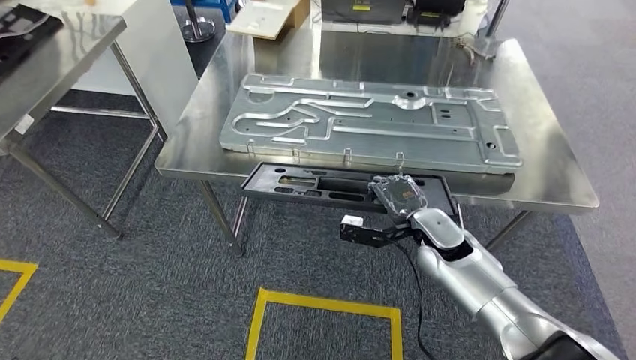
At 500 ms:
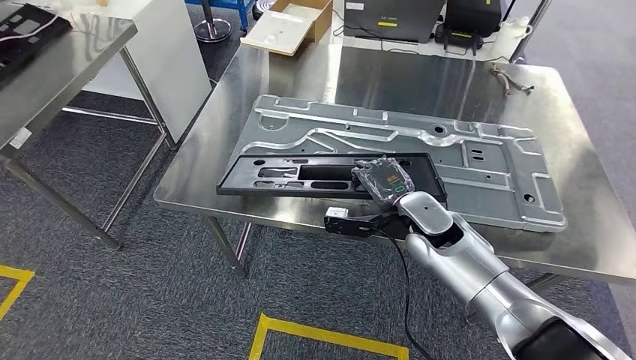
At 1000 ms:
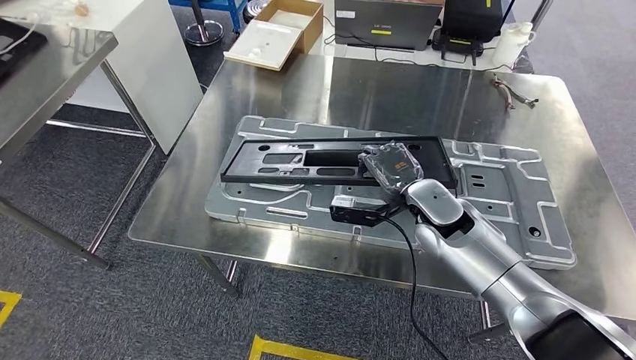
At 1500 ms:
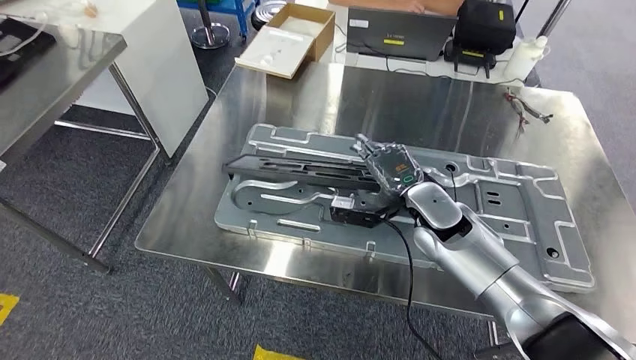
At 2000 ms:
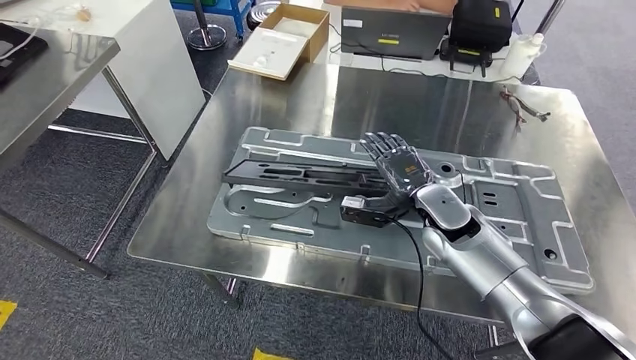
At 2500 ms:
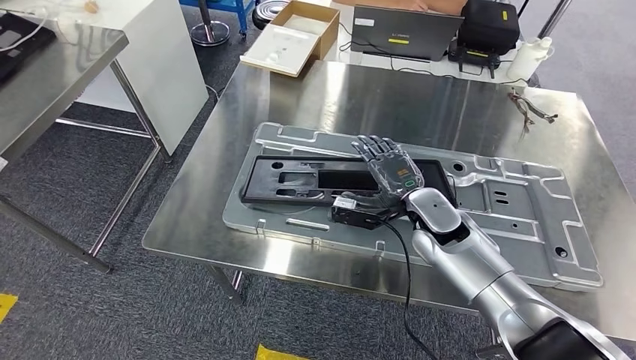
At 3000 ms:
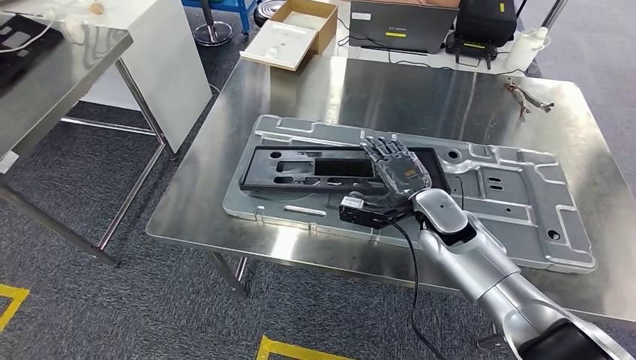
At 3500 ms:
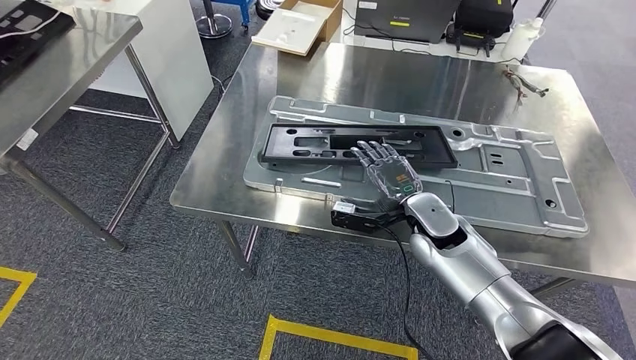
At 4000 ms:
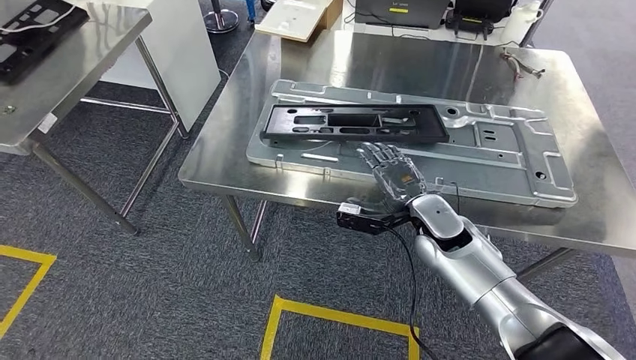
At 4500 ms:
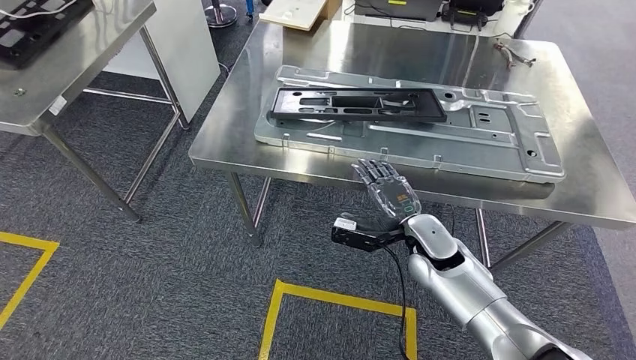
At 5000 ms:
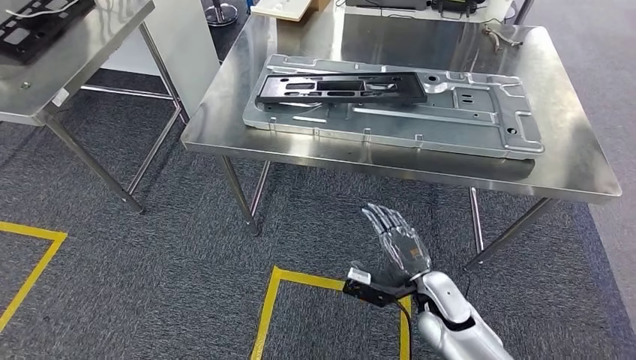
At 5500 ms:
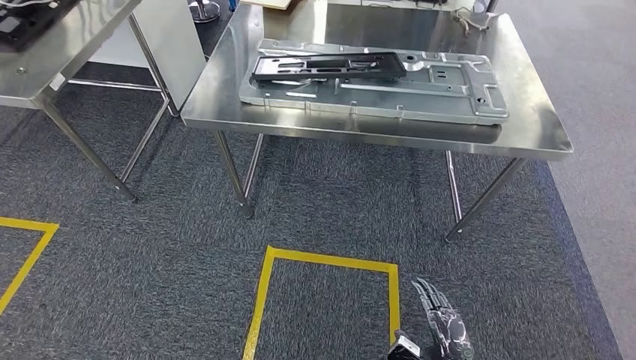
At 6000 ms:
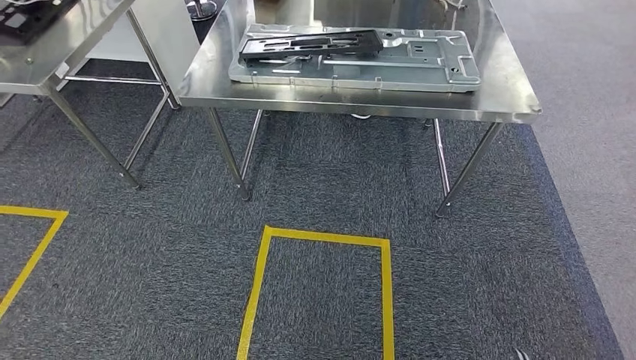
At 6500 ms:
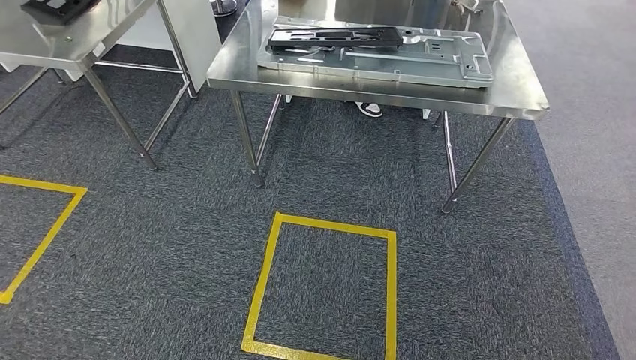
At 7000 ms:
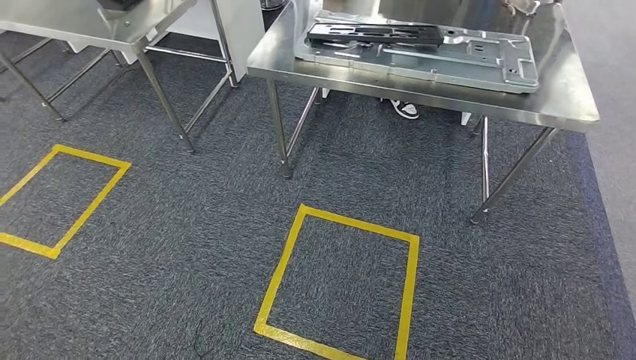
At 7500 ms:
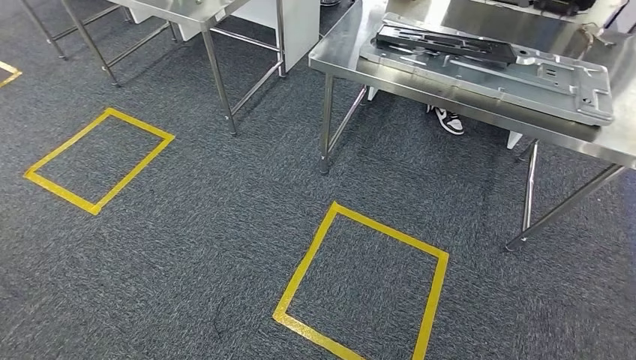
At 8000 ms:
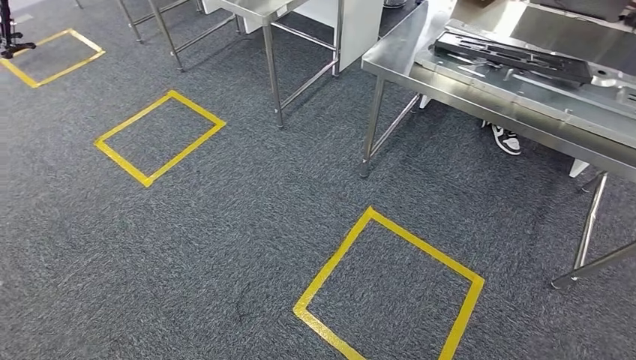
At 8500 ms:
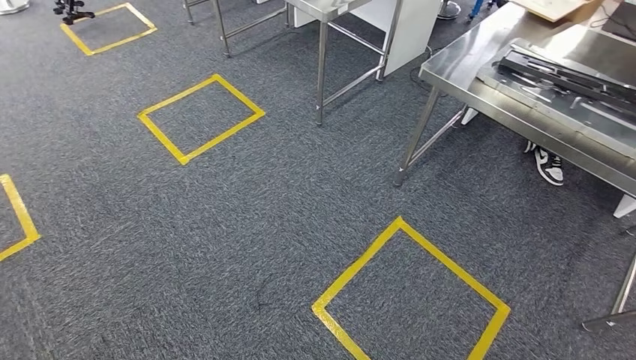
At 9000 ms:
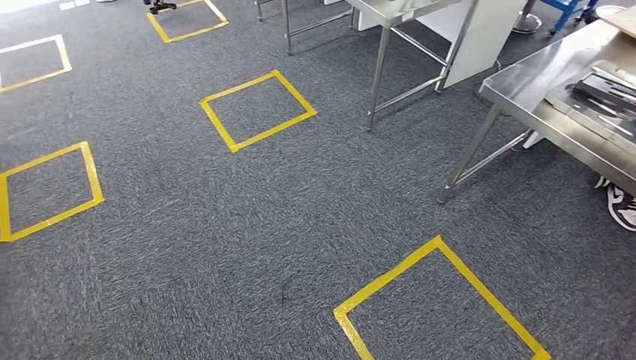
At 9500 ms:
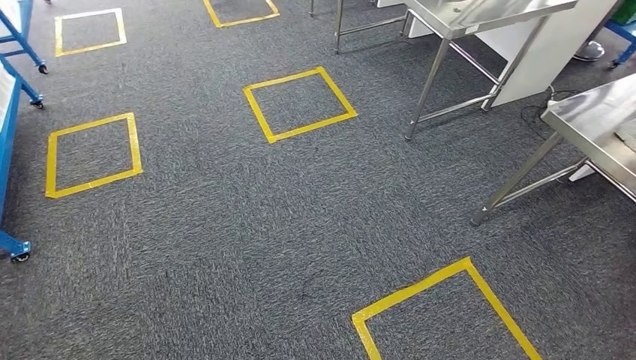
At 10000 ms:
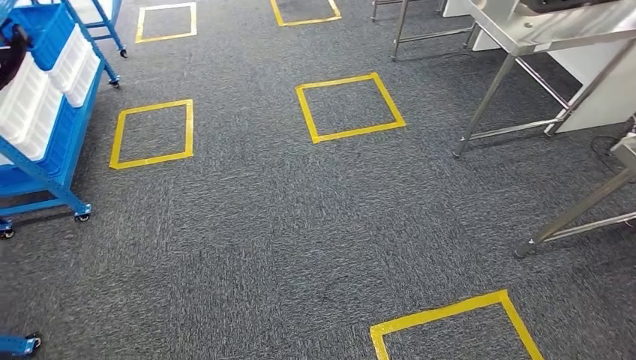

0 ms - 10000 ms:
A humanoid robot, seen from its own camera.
Step, 1500 ms - 6000 ms: Insert the large material into the corresponding slot on the workbench.

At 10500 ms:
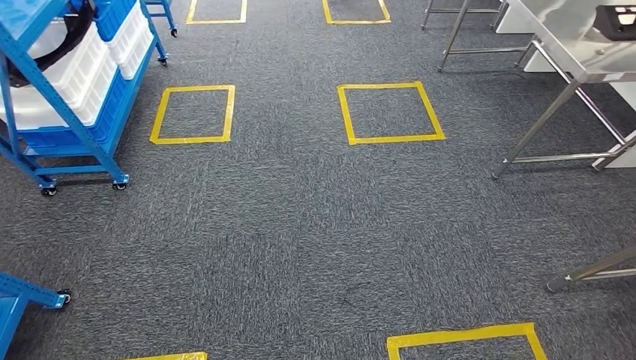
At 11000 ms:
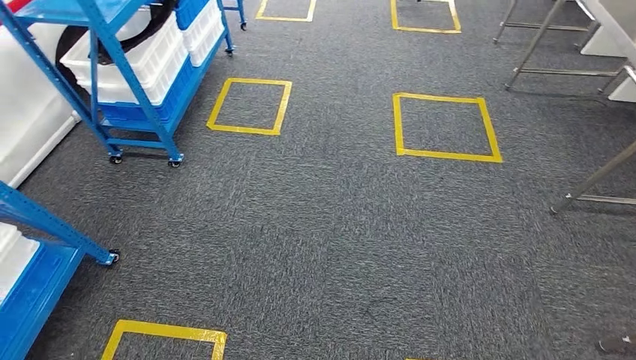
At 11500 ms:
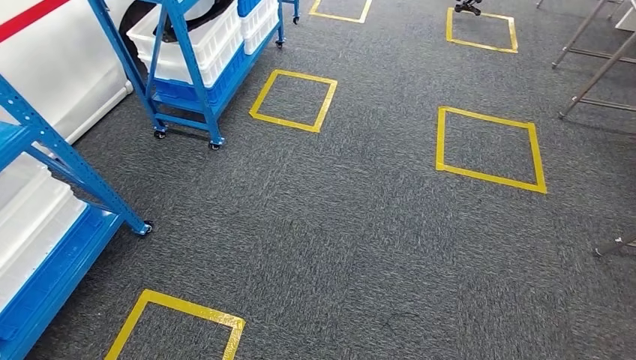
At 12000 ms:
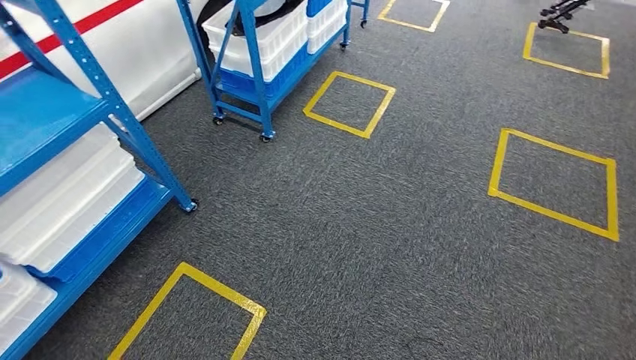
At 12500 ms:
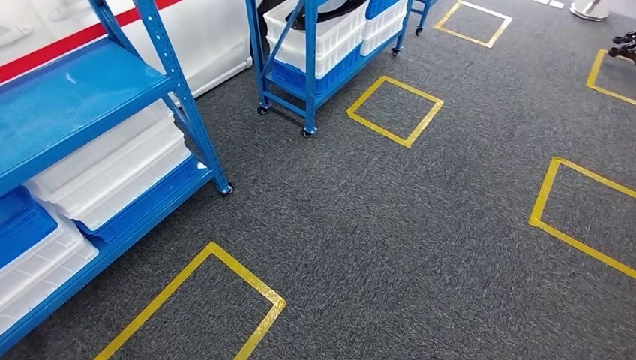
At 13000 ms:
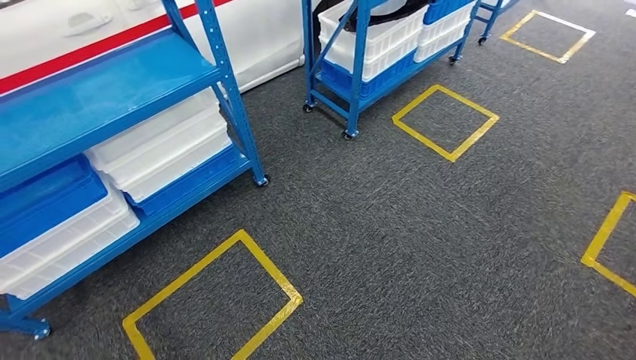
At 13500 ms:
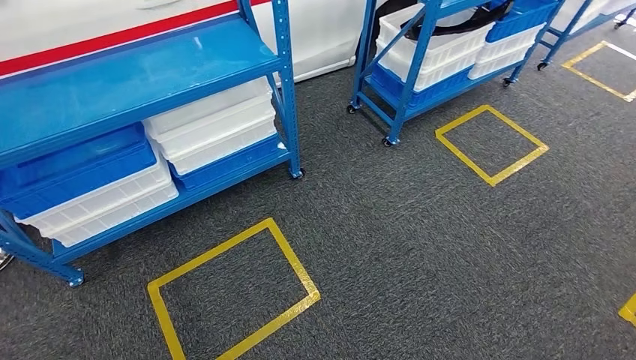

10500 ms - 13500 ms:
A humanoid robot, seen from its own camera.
Step, 10500 ms - 13500 ms: Move to the initial position of the shelf.

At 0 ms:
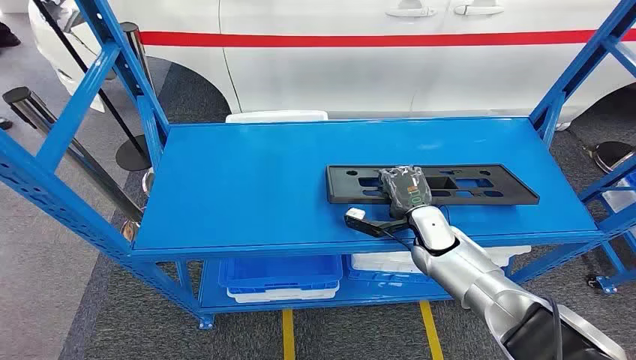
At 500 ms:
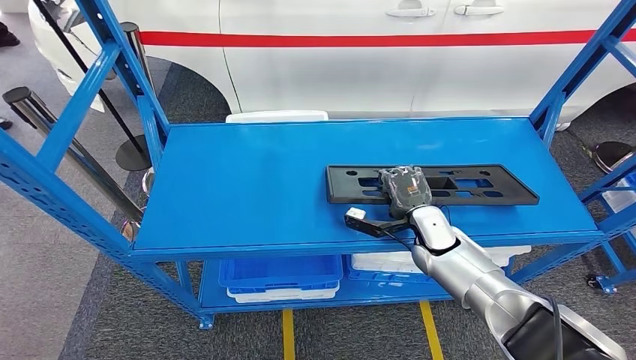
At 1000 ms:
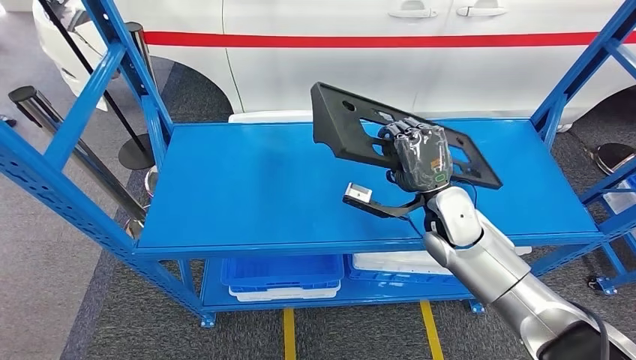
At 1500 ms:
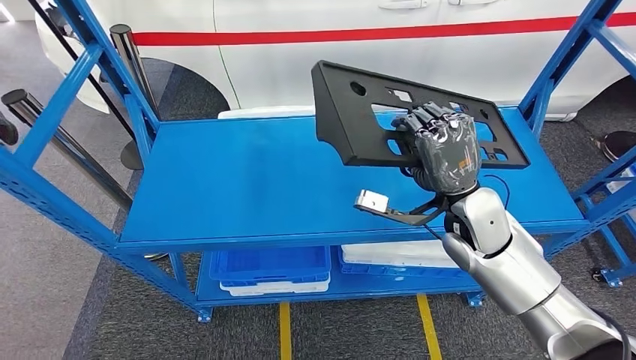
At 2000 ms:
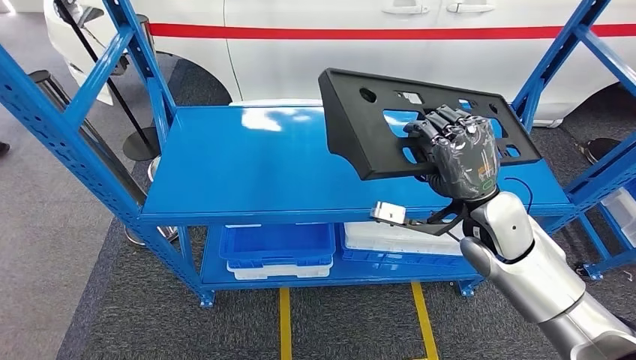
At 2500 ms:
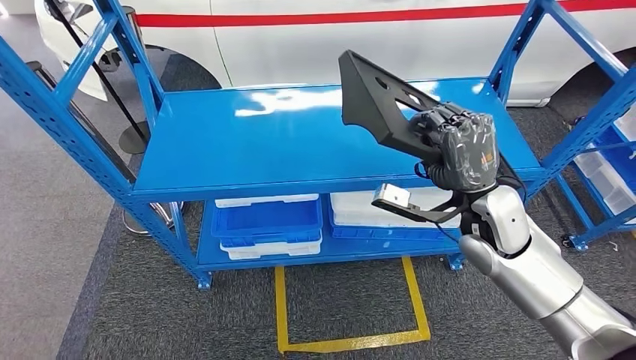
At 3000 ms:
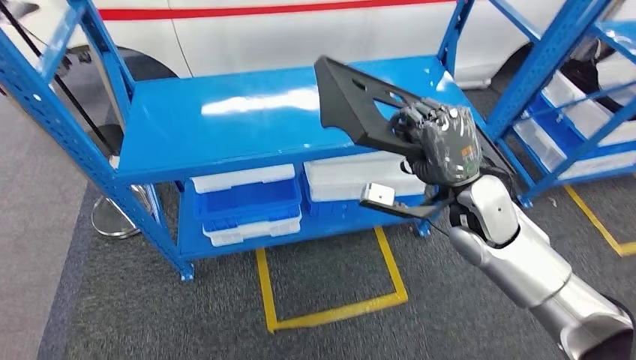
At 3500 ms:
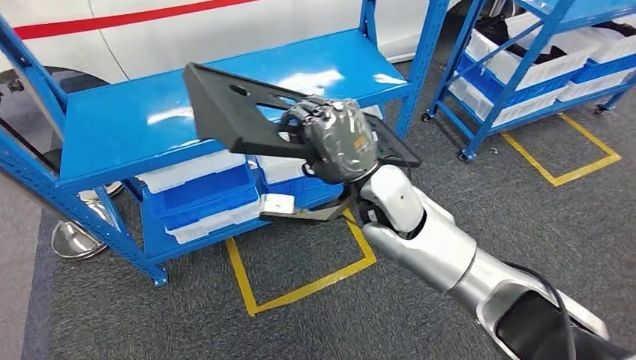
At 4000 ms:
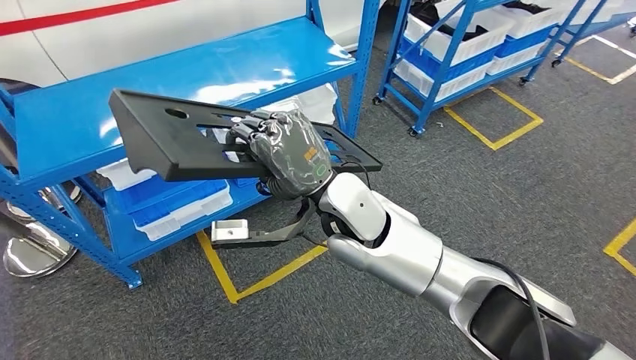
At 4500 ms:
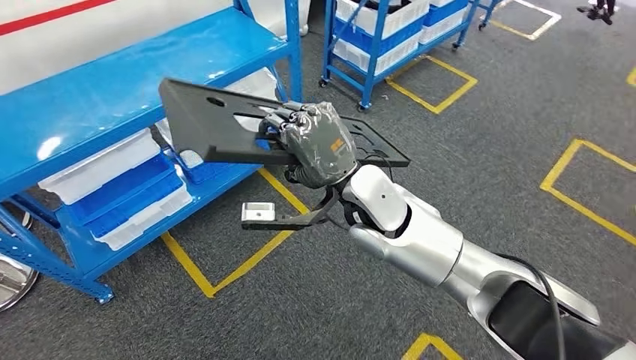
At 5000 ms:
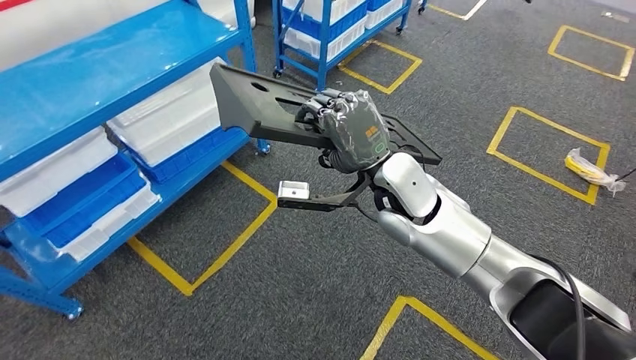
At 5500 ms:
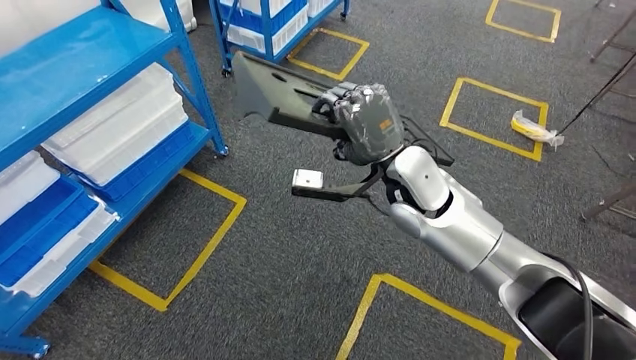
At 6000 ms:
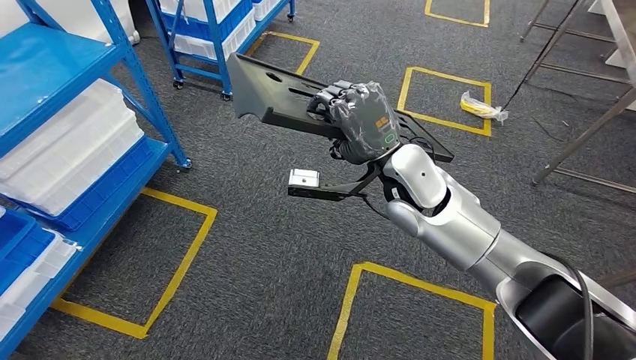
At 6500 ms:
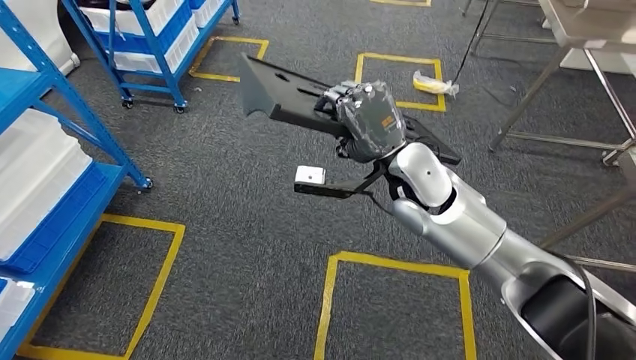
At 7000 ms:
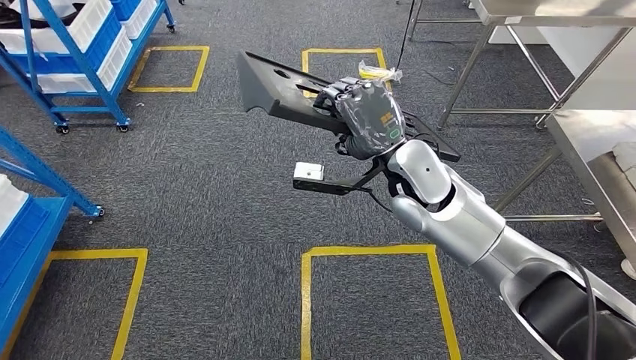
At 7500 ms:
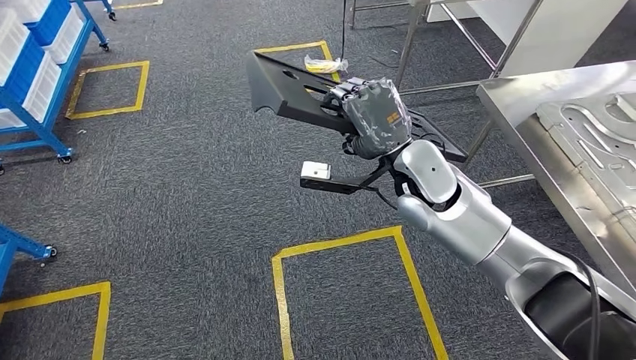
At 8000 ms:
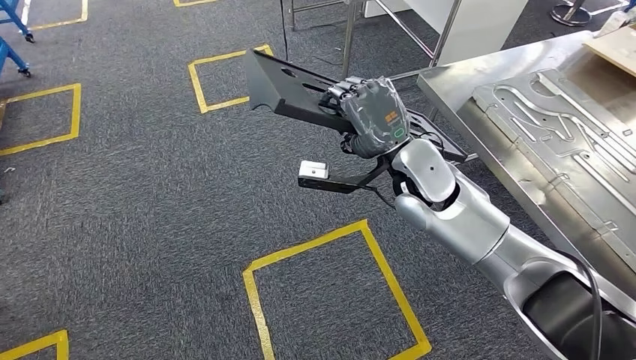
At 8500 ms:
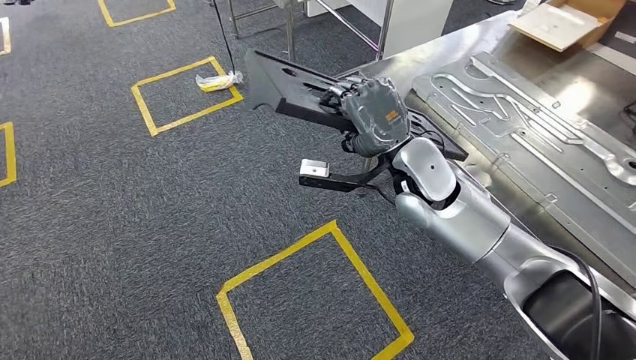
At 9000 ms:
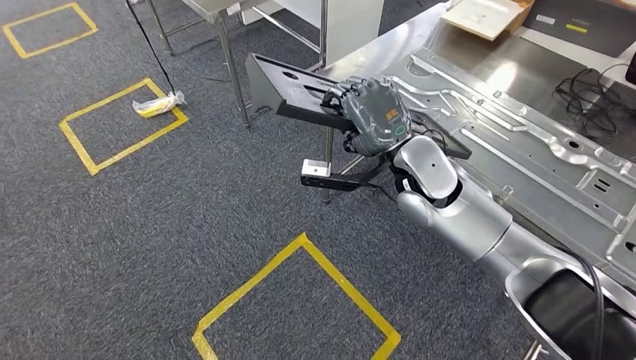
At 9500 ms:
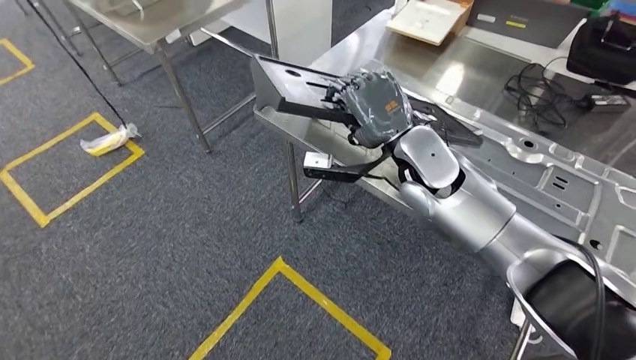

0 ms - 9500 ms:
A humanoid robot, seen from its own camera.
Step, 0 ms - 3000 ms: Pick up the large material from the shelf.
Step, 4500 ms - 9000 ms: Move the large material to the workbench.
